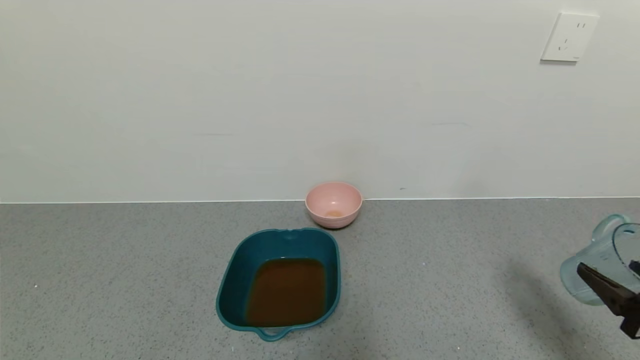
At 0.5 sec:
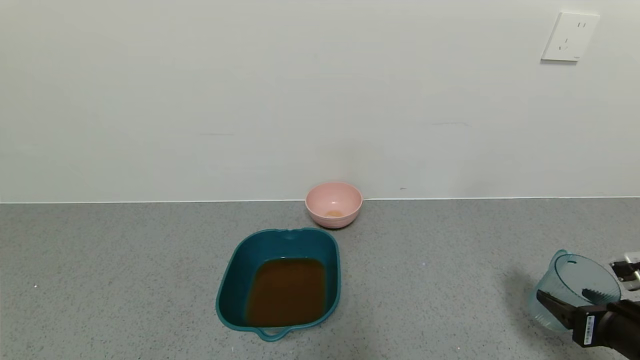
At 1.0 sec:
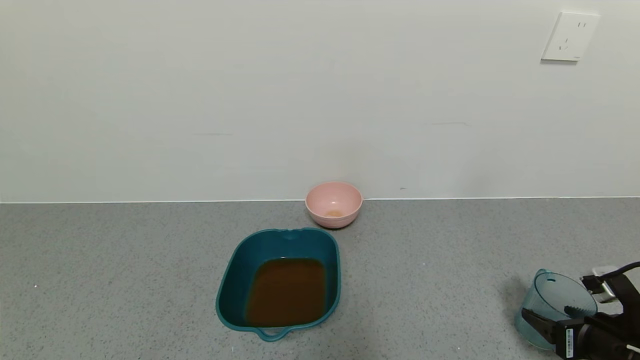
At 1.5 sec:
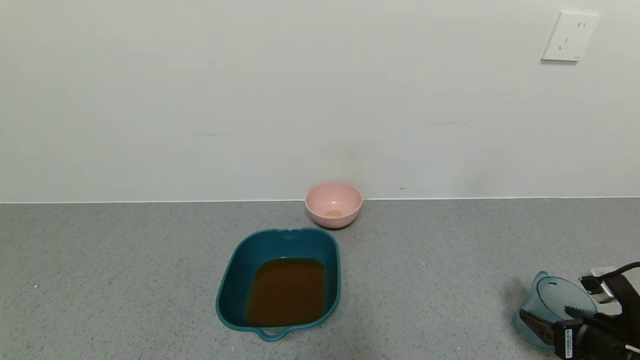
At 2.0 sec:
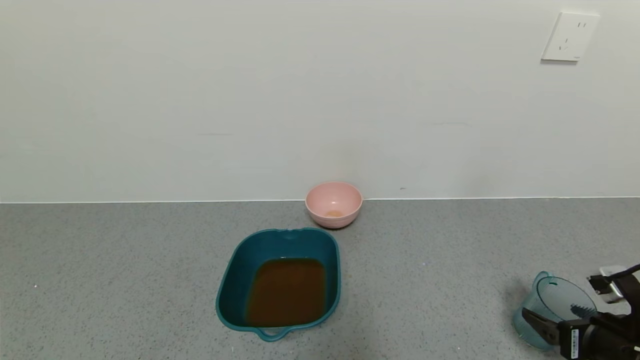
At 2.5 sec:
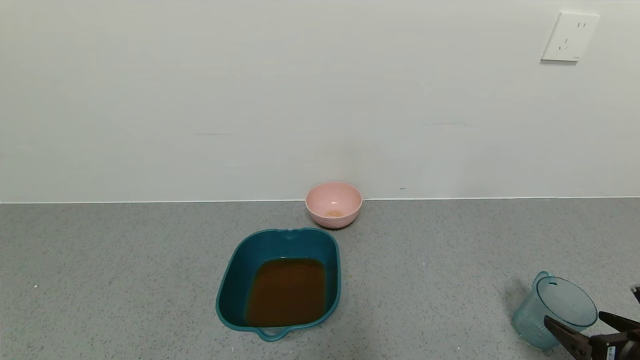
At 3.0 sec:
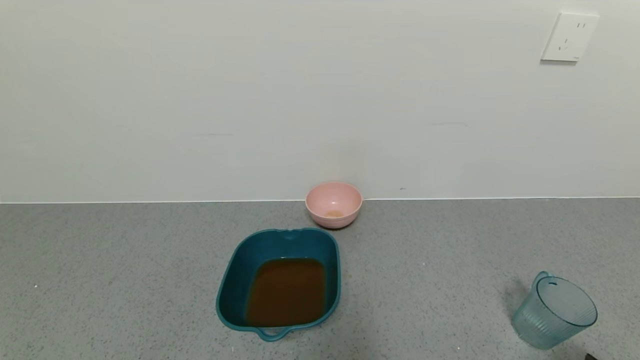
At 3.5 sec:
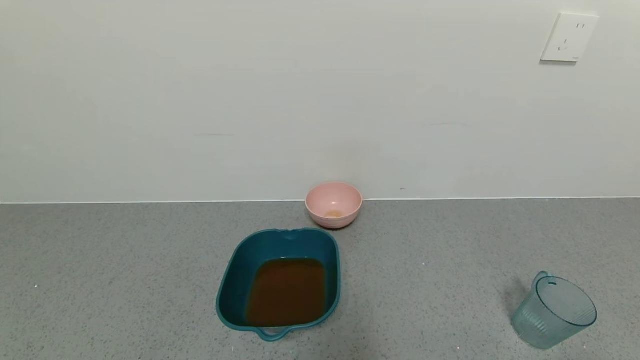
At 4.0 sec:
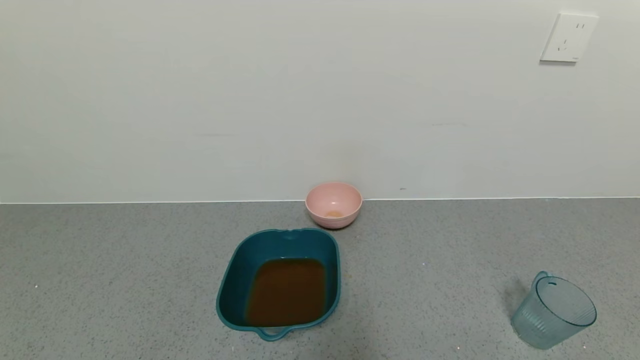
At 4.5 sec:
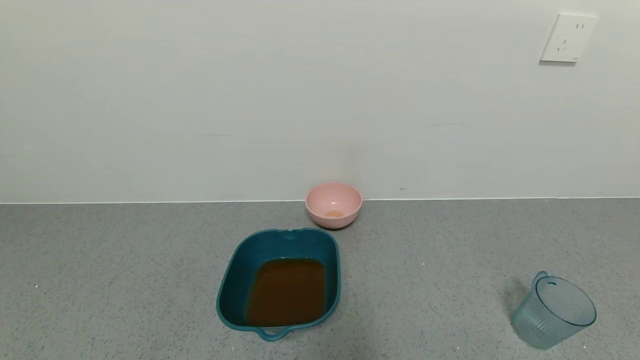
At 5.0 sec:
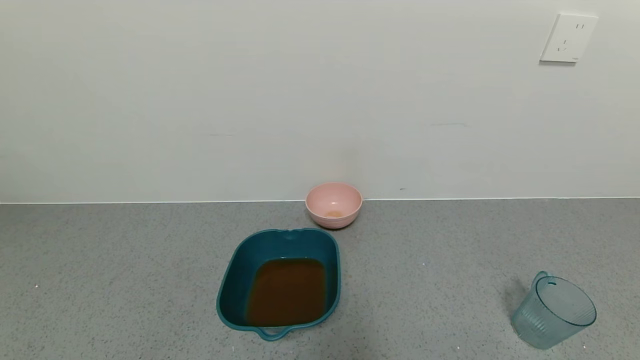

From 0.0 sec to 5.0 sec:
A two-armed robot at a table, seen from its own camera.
Task of the whole recording: use a gripper to pick up the cup and pour the liquid into a bowl or tray.
Step, from 0.0 sec to 2.0 sec: Place blue cup with tea on the table with right gripper.
From 0.0 sec to 2.5 sec: The right gripper opens its fingers.
From 2.5 sec to 5.0 sec: The right gripper heads backward, covering about 15 cm.

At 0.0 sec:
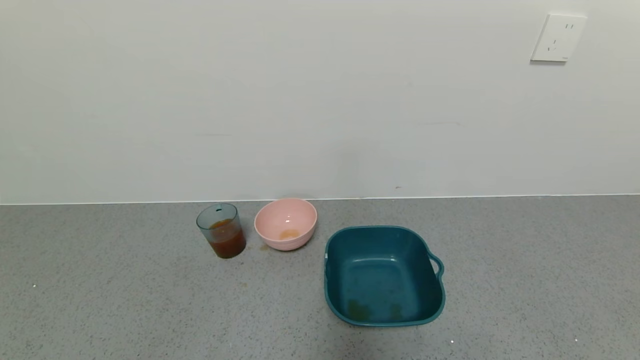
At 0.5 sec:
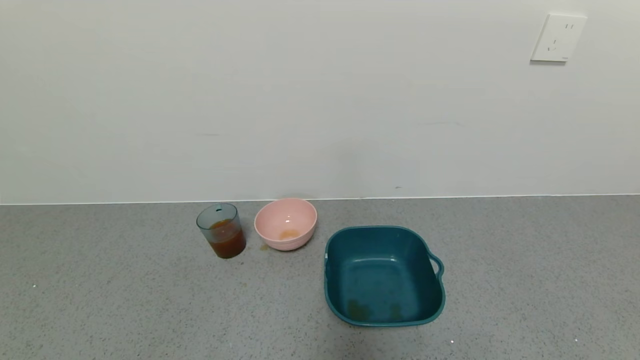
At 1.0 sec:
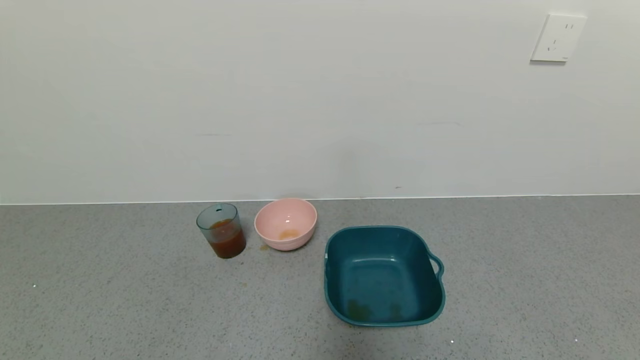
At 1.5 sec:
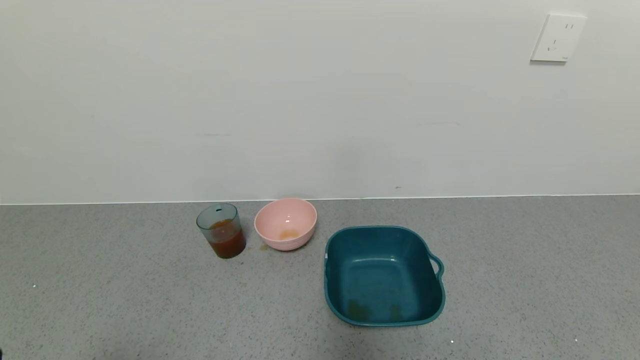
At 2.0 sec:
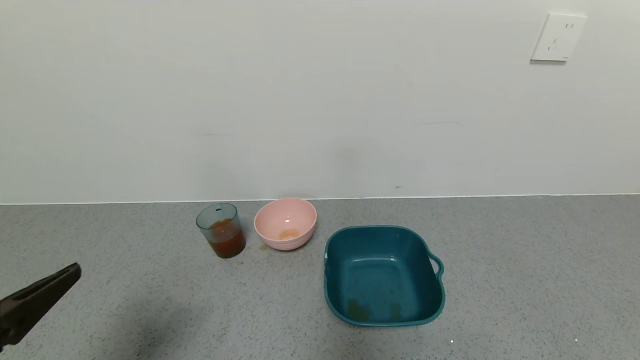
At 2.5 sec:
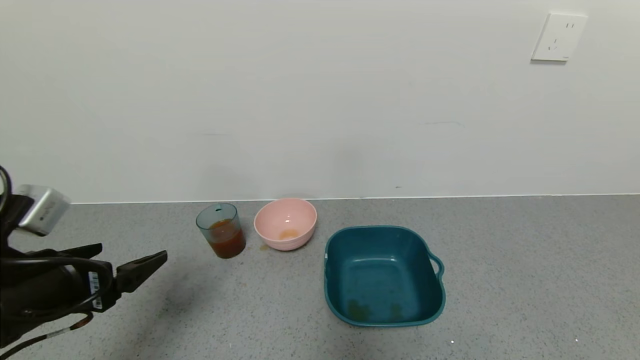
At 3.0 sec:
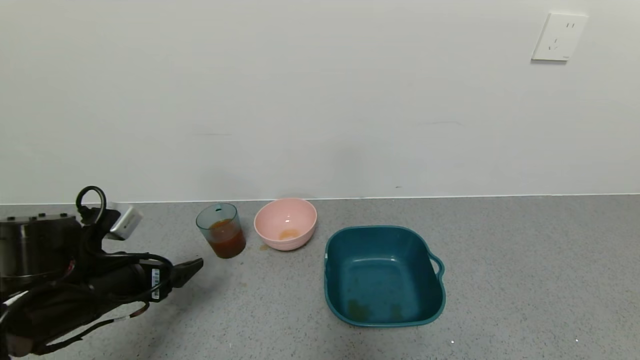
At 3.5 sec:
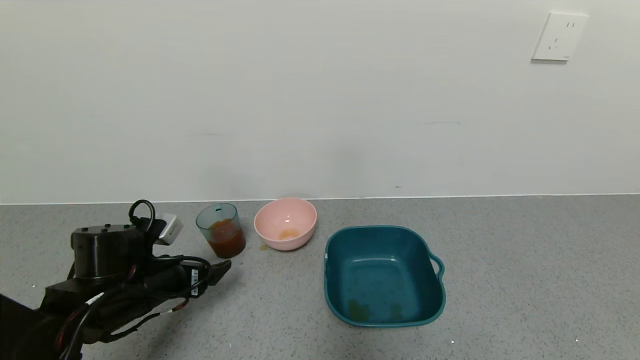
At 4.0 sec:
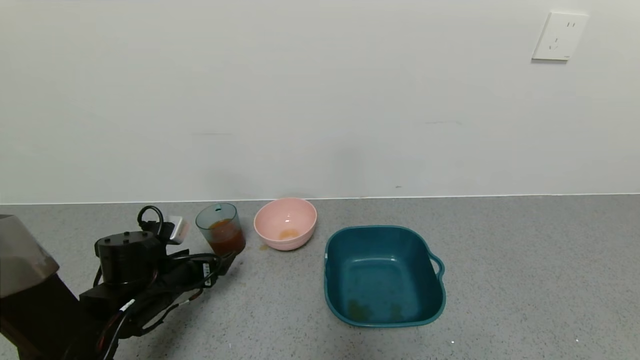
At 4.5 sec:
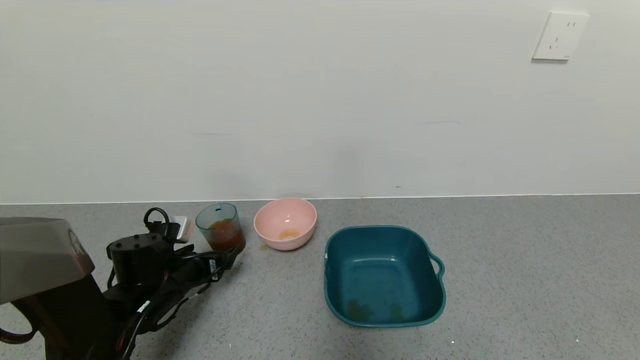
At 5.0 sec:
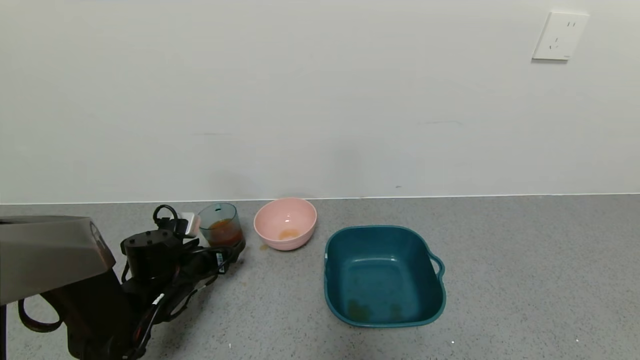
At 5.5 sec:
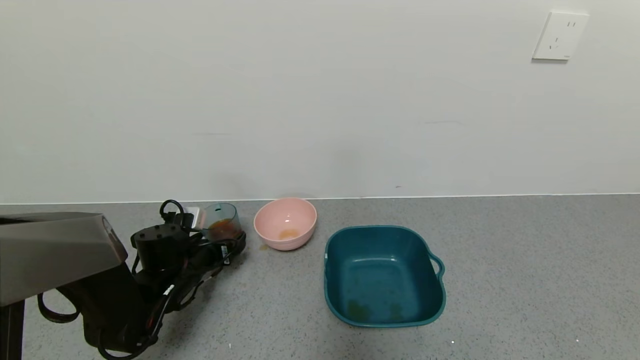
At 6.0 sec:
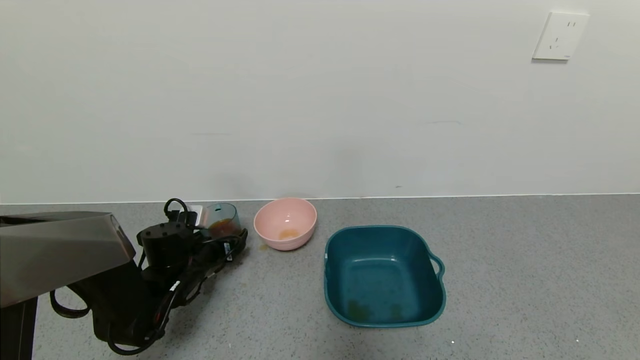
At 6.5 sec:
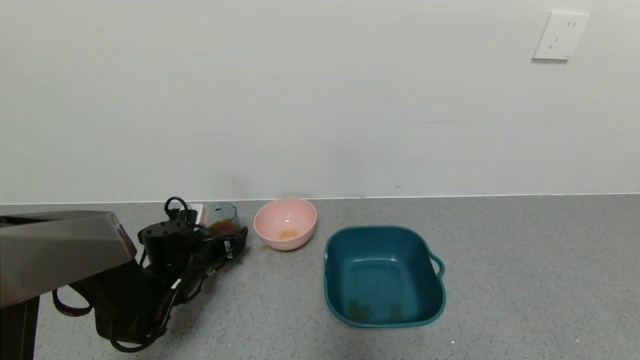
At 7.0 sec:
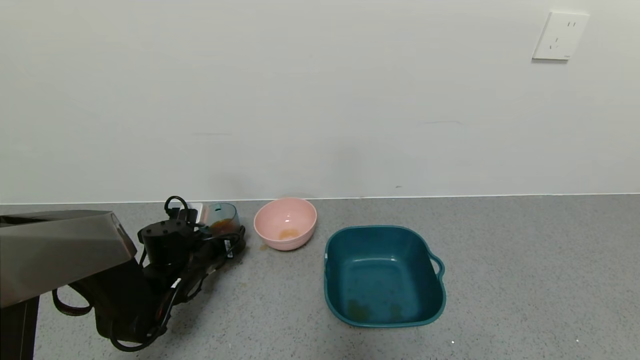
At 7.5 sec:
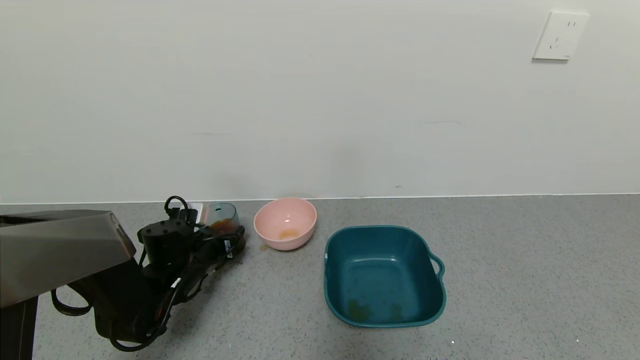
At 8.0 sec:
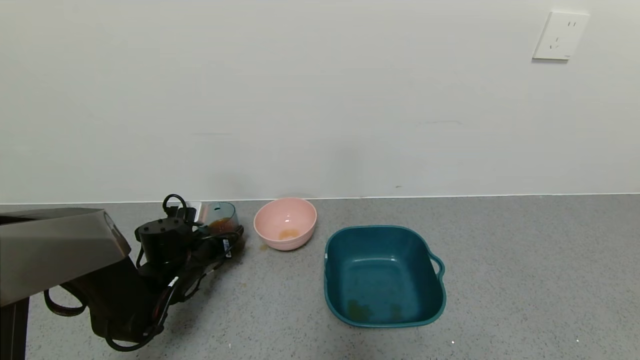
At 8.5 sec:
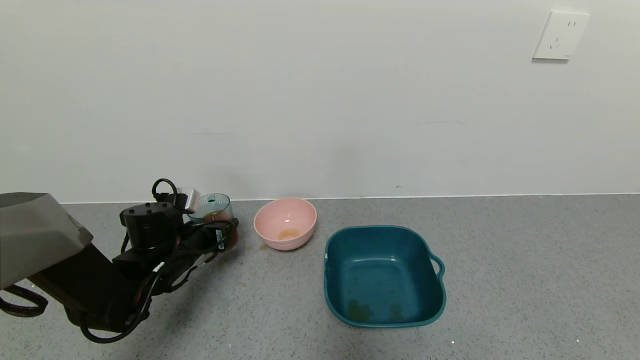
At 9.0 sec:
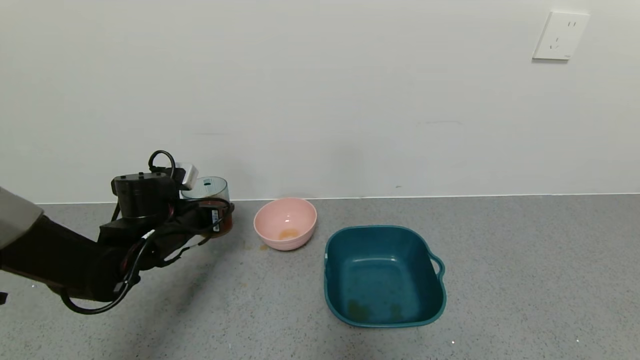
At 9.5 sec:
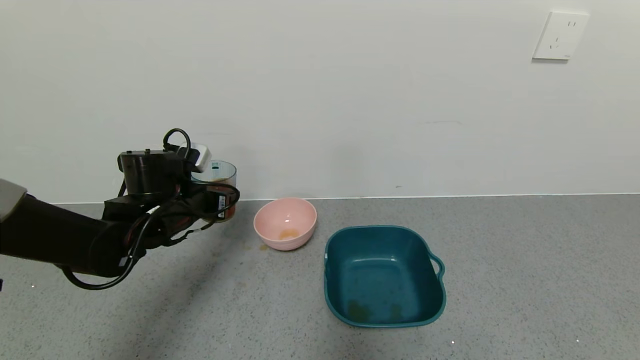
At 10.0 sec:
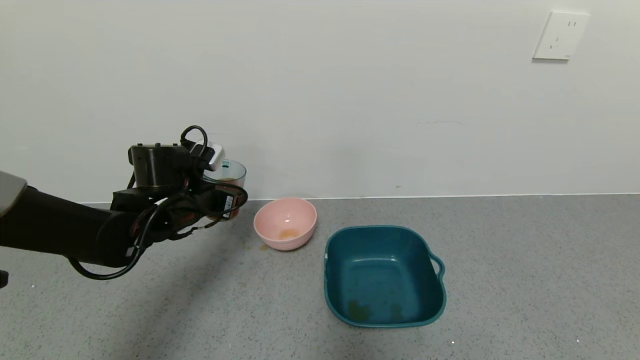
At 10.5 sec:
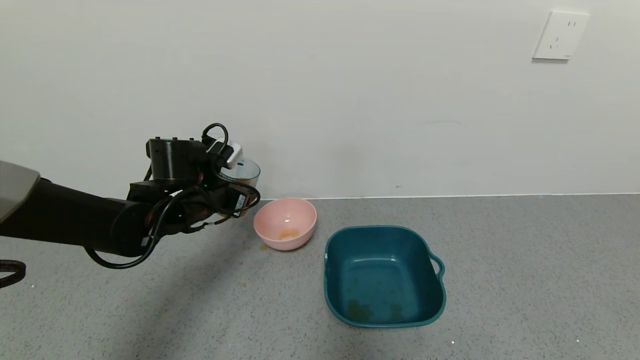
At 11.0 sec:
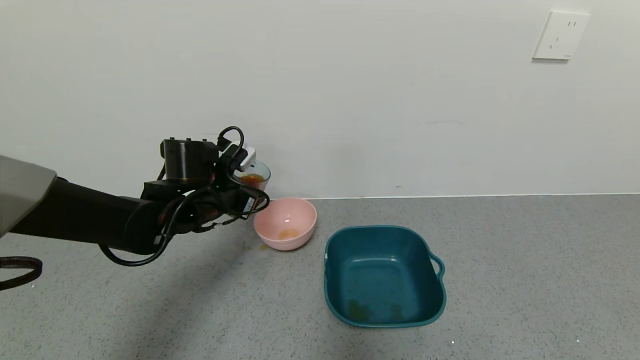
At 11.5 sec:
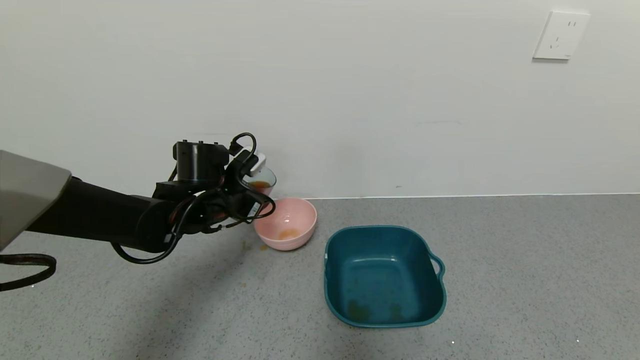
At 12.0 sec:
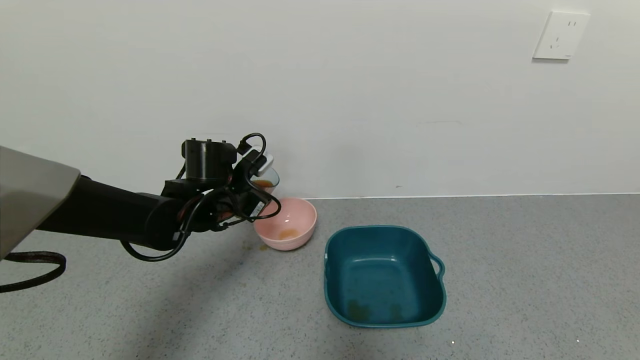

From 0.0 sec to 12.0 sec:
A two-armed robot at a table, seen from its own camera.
Task of the whole recording: use a gripper to pick up the cup and pour the liquid into a bowl or tray.
Step, from 0.0 sec to 8.0 sec: Pick up blue cup filled with tea with left gripper.
From 0.0 sec to 2.0 sec: The left gripper heads upward and forward, covering roughly 20 cm.
From 2.0 sec to 4.0 sec: The left gripper moves forward and downward, about 25 cm.
From 4.0 sec to 6.0 sec: The left gripper shifts some 5 cm forward.
From 6.0 sec to 8.0 sec: The left gripper closes its fingers.
From 8.0 sec to 10.0 sec: The left gripper shifts approximately 10 cm upward.
From 10.0 sec to 12.0 sec: The left gripper changes place by about 5 cm.

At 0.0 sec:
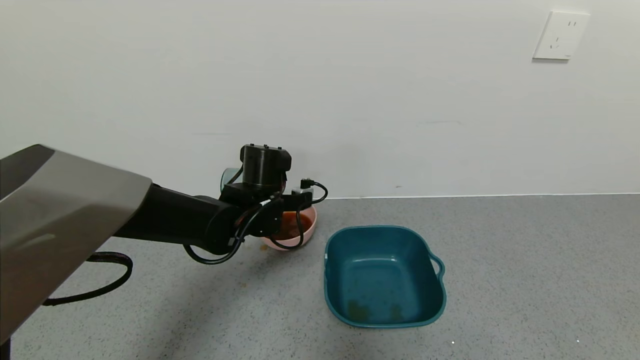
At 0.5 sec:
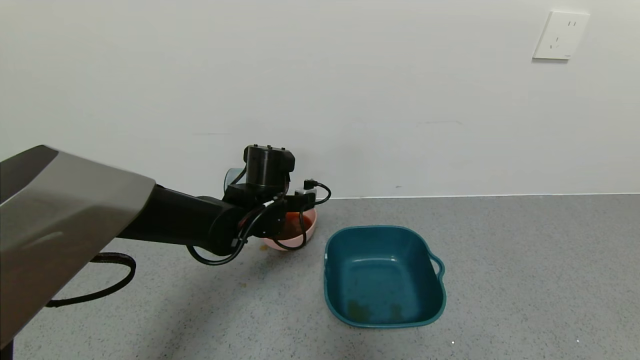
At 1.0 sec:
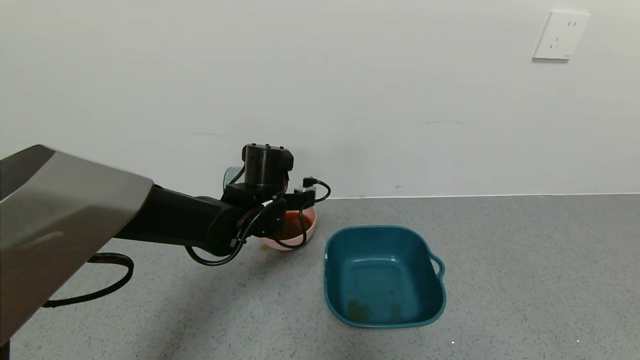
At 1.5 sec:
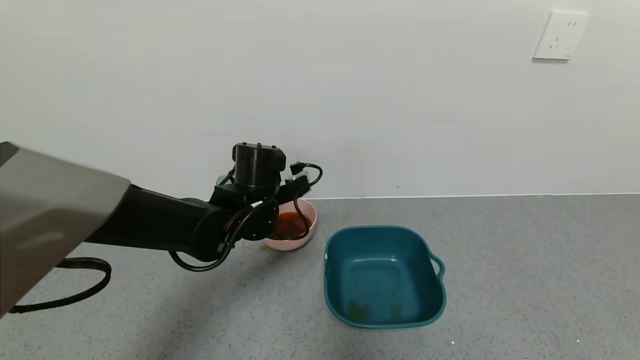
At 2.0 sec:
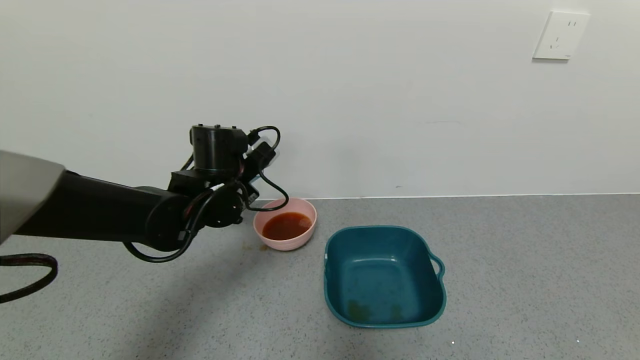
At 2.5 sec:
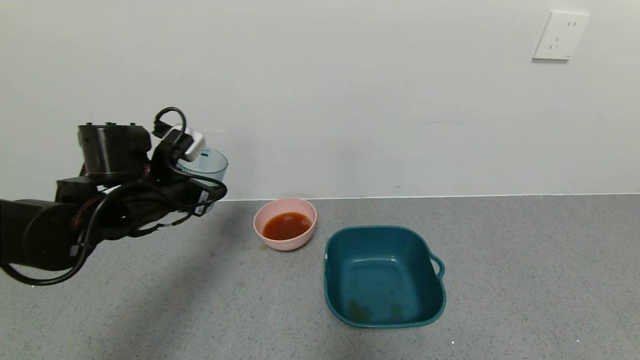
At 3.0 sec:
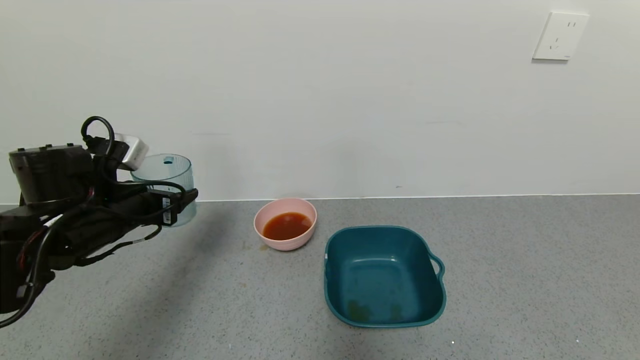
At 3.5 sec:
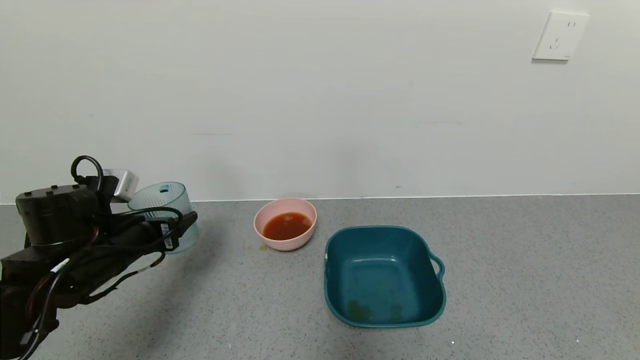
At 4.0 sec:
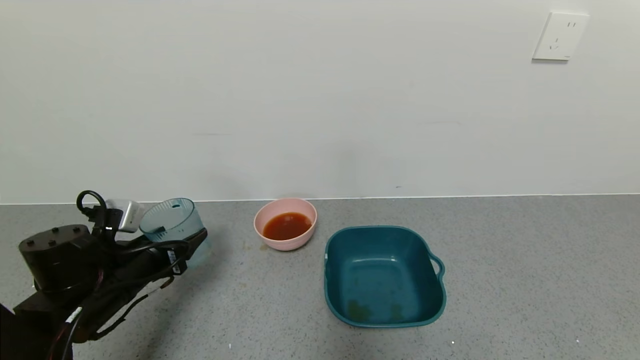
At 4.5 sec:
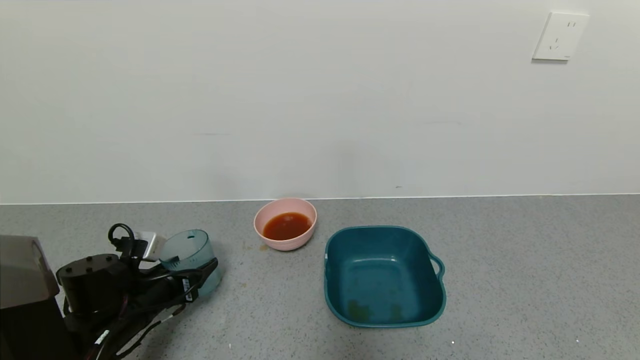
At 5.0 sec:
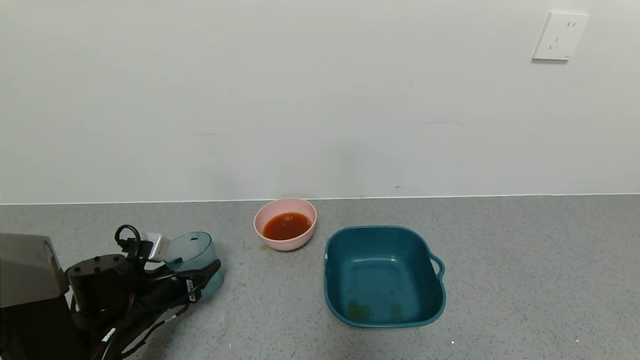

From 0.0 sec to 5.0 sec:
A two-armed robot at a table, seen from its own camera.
Task of the whole recording: use a gripper to pick up the cup and pour the liquid into a bowl or tray.
From 0.0 sec to 2.5 sec: The left gripper heads to the left and backward, covering approximately 15 cm.
From 2.5 sec to 5.0 sec: The left gripper travels downward by about 15 cm.
